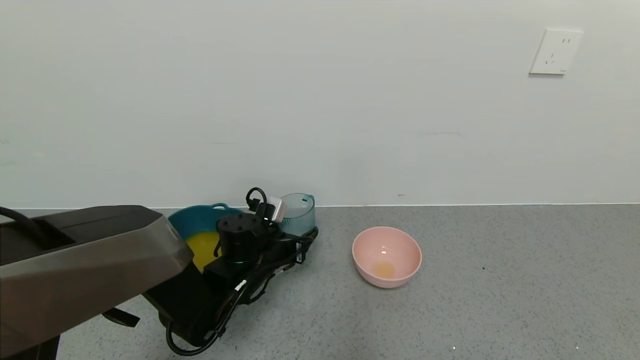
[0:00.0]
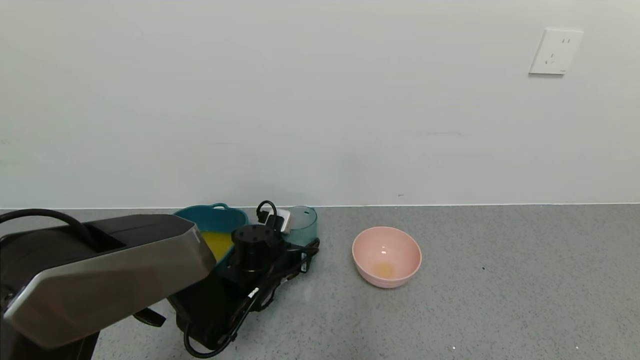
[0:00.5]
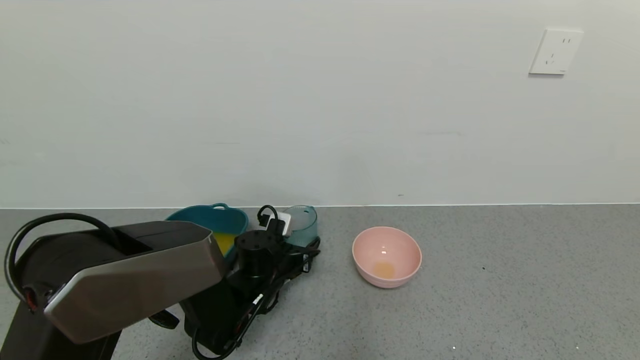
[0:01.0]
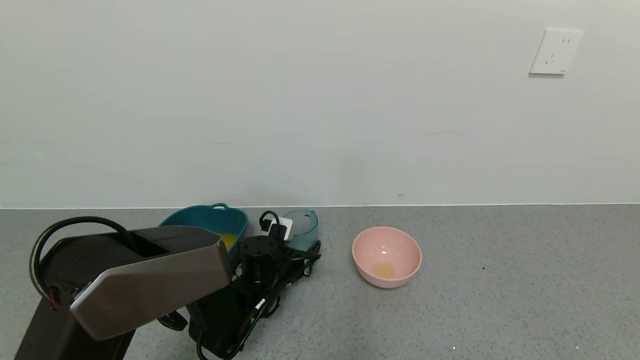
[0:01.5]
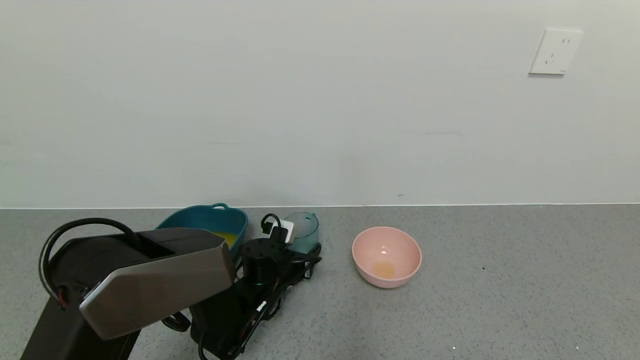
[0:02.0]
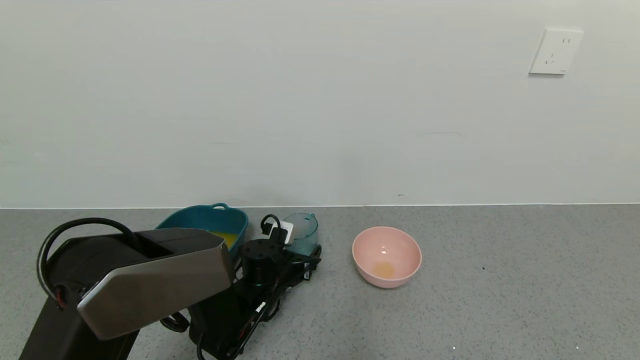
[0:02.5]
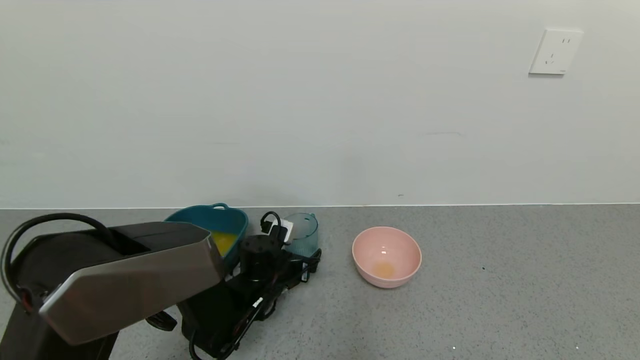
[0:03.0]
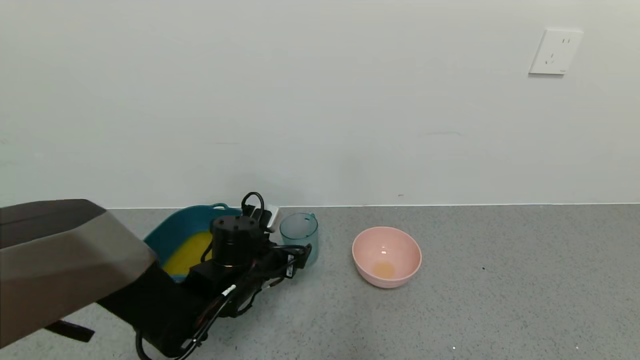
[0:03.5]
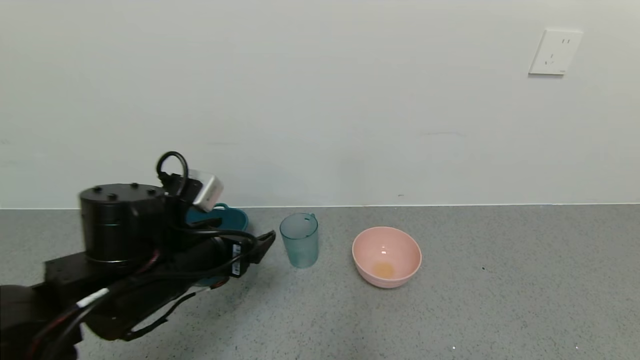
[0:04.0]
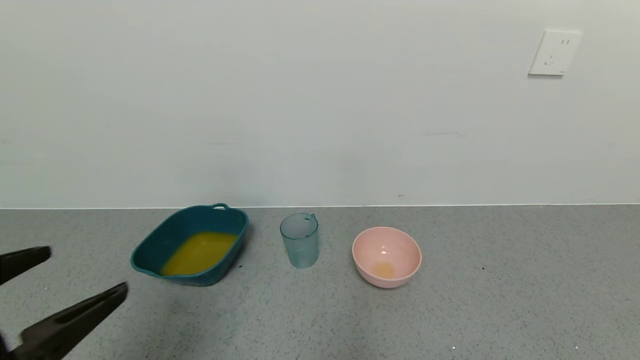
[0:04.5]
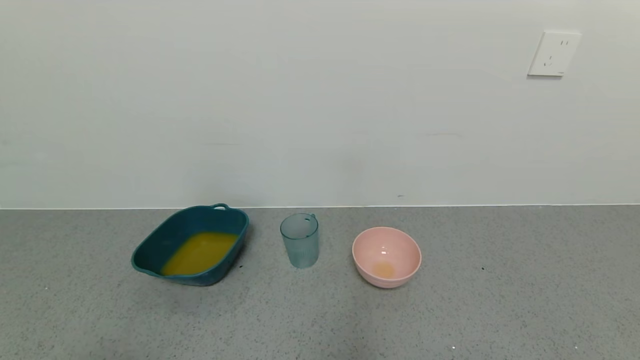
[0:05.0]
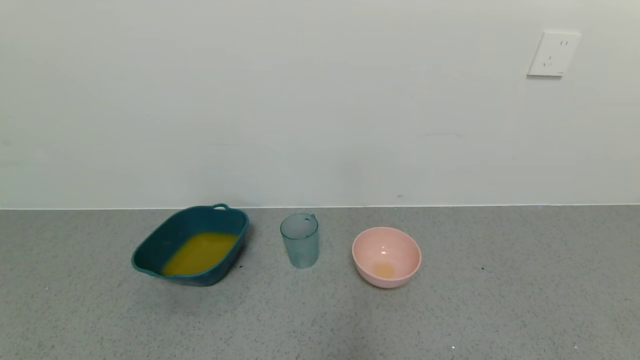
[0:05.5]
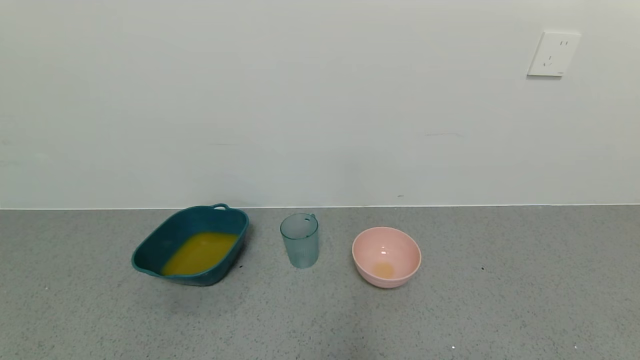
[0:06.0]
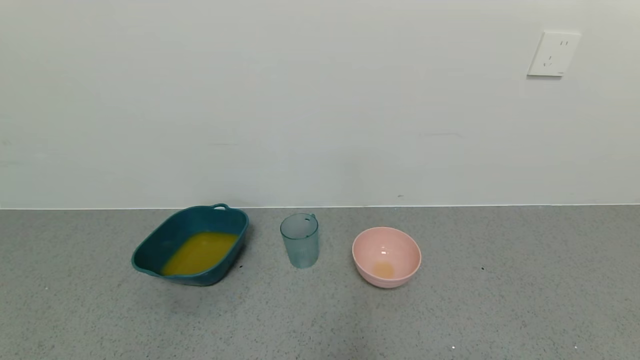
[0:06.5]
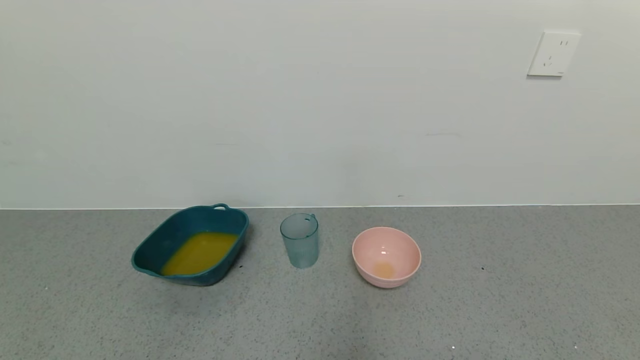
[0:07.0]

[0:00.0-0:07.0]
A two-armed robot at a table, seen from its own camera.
Task of the whole recording: use a gripper to pick up the cup and pour the liquid into a bowl or tray.
Step, 0:00.0 to 0:03.5: Place the glass cup with the left gripper.
0:00.0 to 0:02.0: The left gripper heads downward, covering roughly 5 cm.
0:02.0 to 0:03.5: The left gripper is displaced upward by about 10 cm, and opens its fingers.
0:03.5 to 0:05.0: The left gripper heads backward, upward and to the left, covering some 40 cm.
